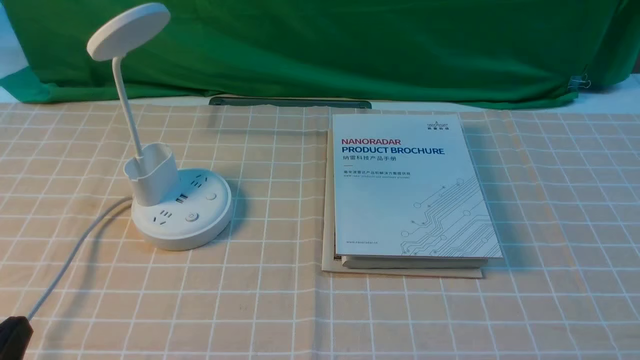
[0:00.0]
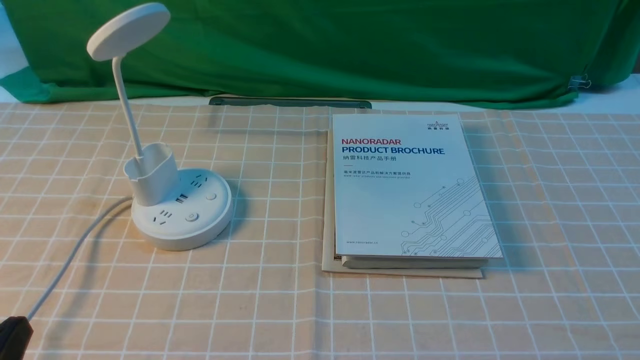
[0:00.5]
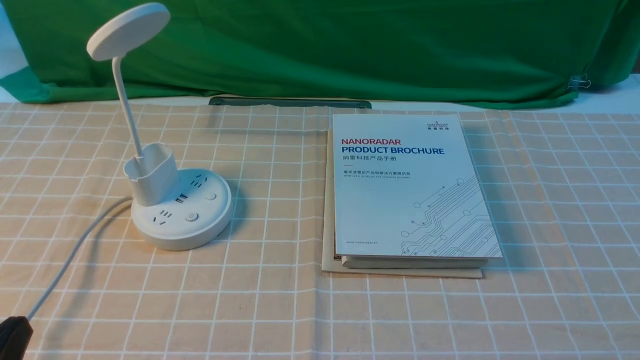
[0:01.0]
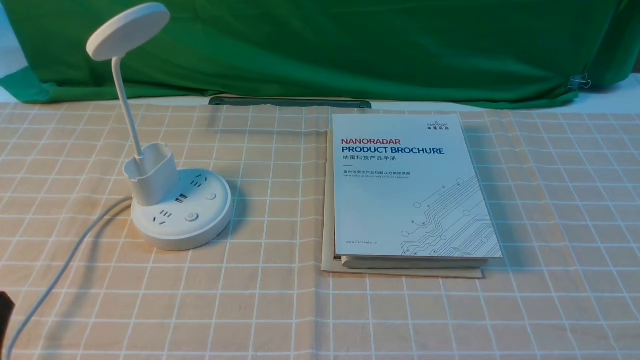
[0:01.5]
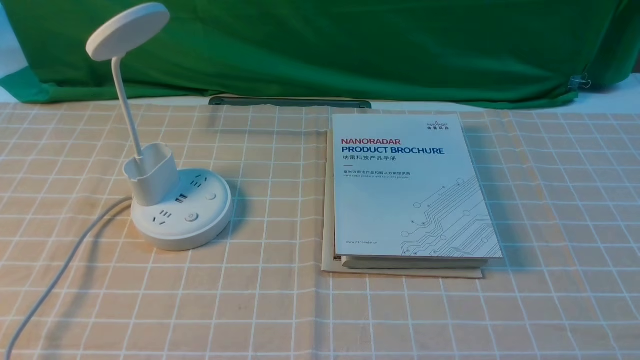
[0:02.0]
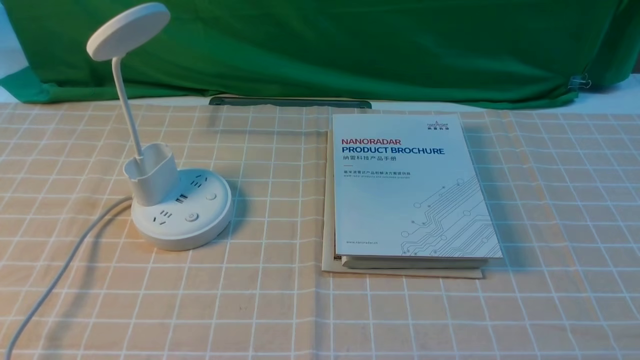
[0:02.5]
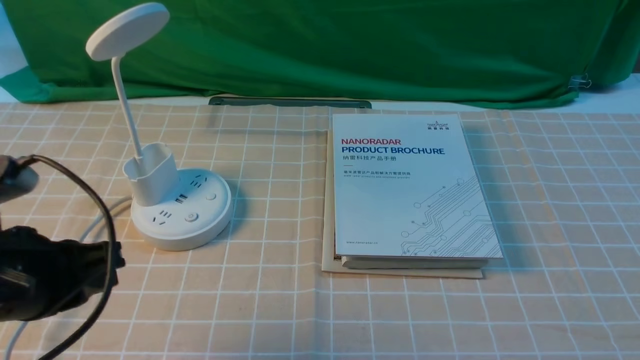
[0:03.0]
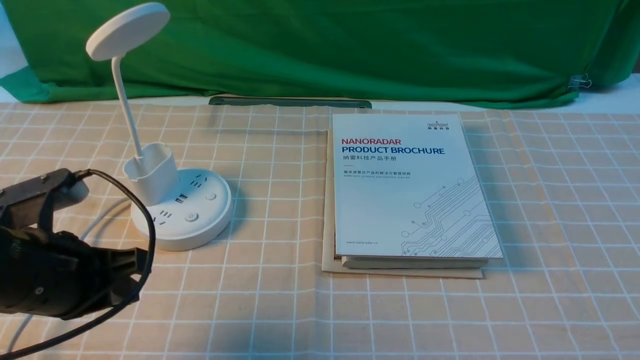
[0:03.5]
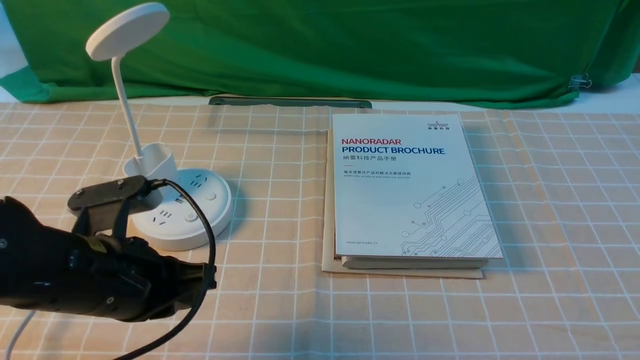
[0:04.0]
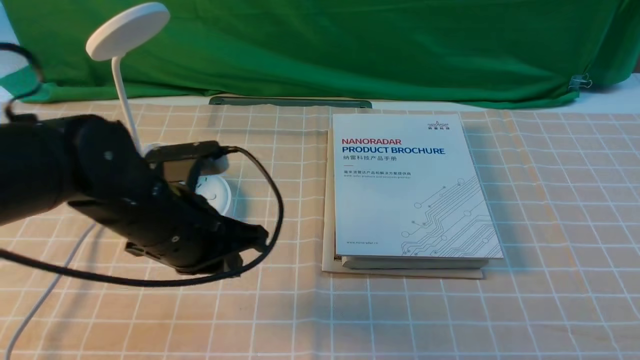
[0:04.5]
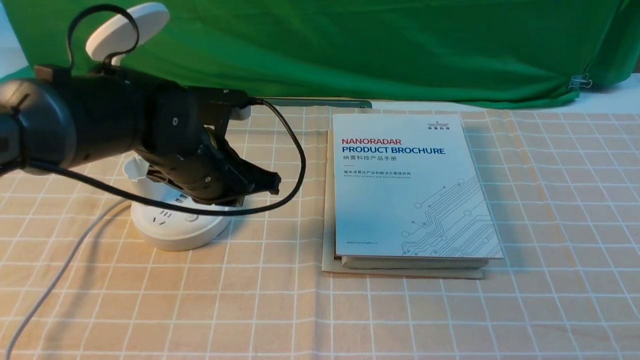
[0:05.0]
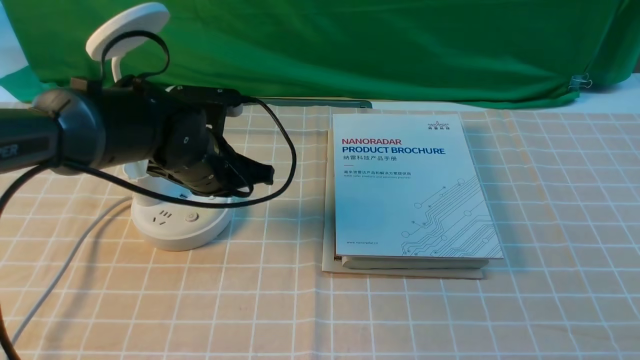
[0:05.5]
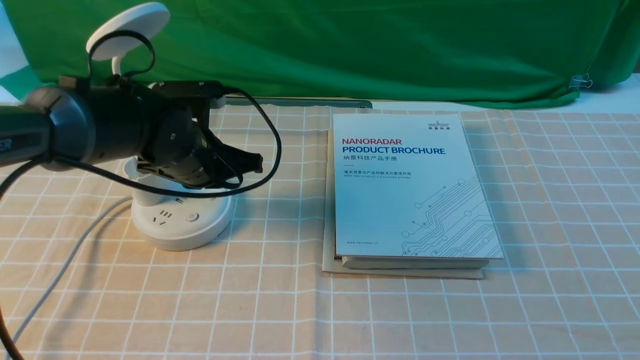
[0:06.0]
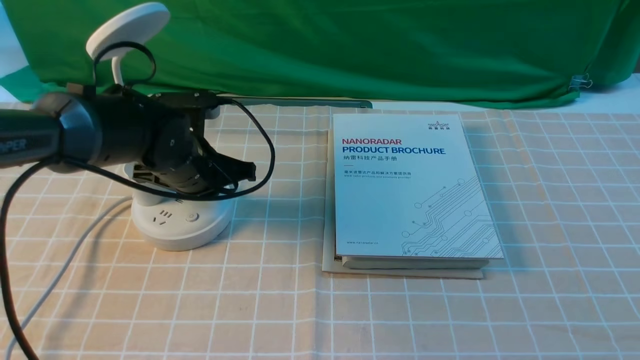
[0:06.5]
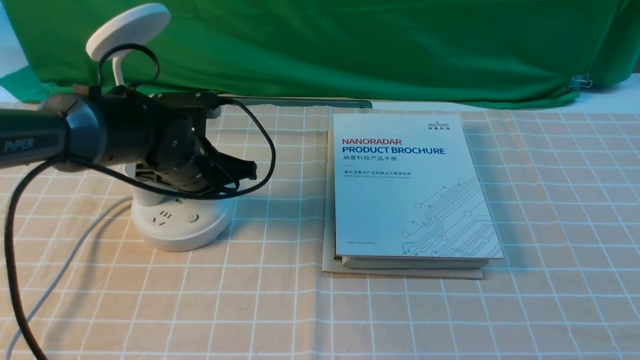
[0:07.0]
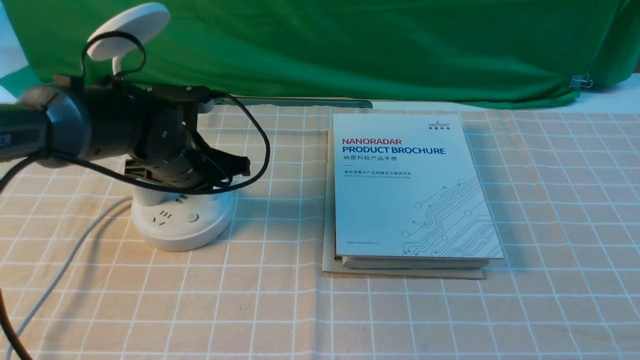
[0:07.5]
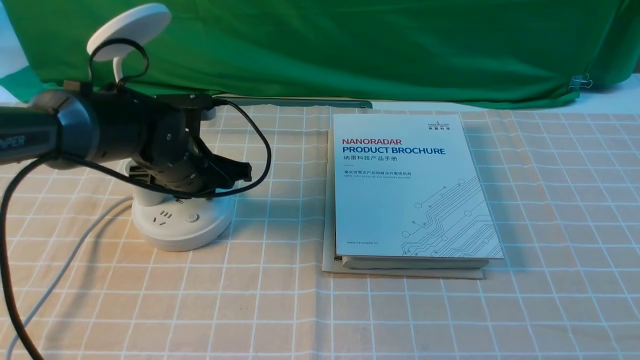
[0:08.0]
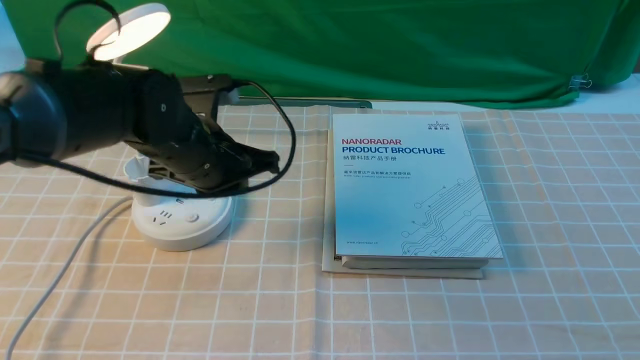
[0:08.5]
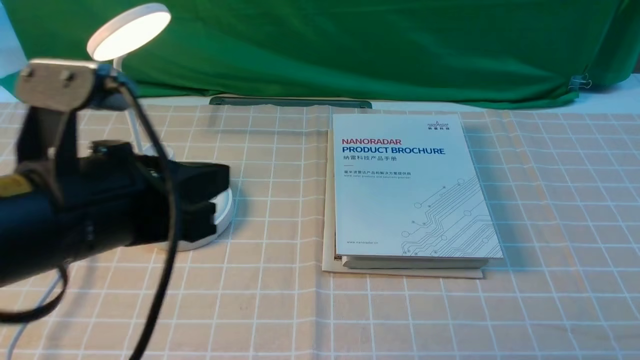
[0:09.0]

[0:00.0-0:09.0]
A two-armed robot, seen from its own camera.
Step, 0:00.0 to 0:08.5: use the left arm to press the button switch on the lamp holder.
0:02.0 to 0:04.5: The left gripper heads forward and to the right, covering about 30 cm.
0:04.5 to 0:07.0: The left gripper heads forward, covering roughly 10 cm.
0:07.0 to 0:09.0: The left gripper is displaced backward and upward by roughly 25 cm.

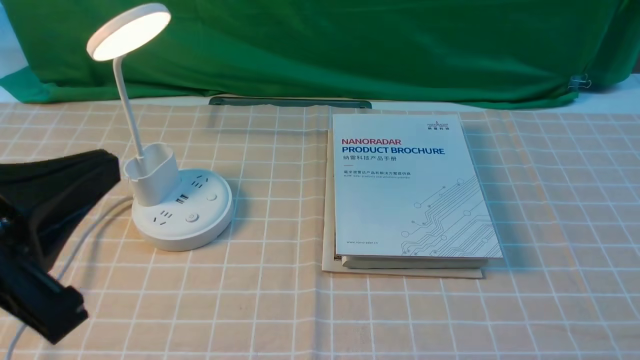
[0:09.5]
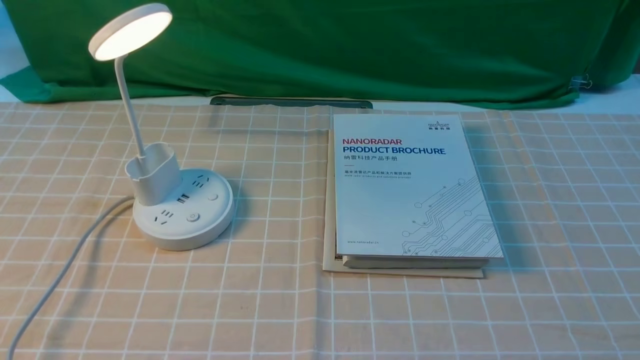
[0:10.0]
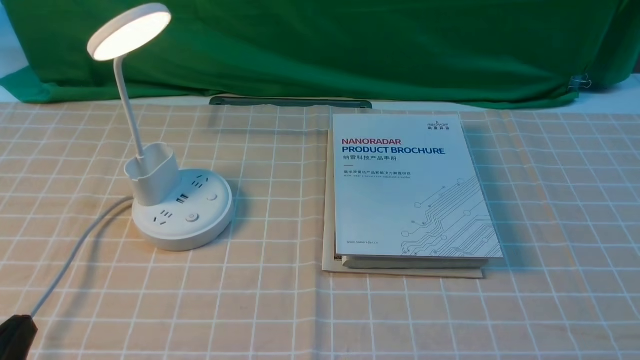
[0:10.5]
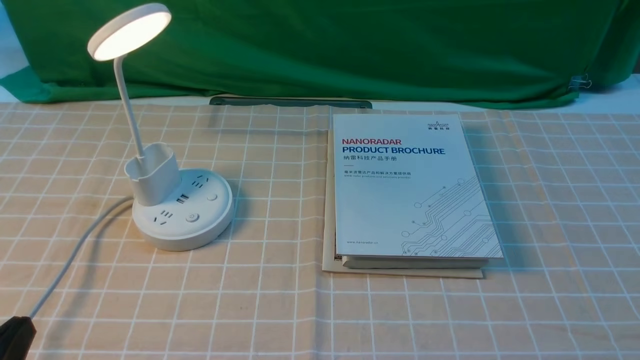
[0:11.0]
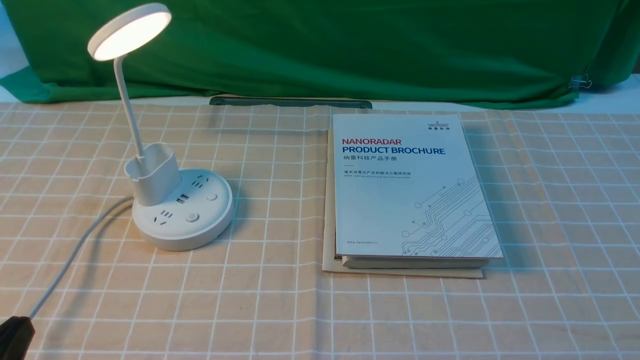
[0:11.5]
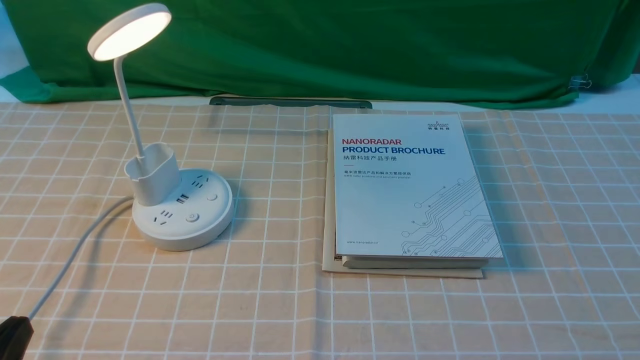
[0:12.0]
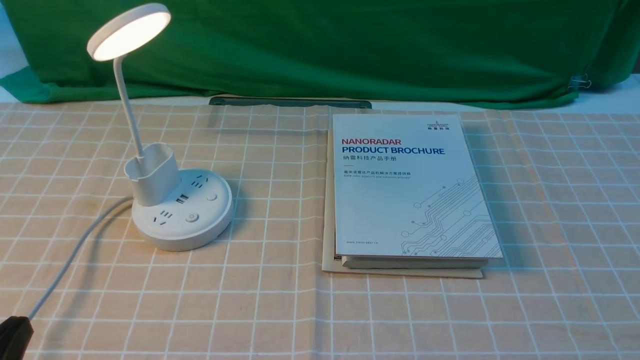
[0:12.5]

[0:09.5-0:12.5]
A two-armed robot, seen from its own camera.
0:09.5 to 0:11.0: The left gripper heads downward, covering approximately 15 cm.
0:11.0 to 0:12.5: Neither gripper changes place.
